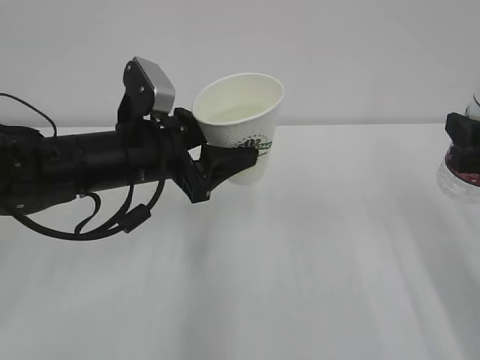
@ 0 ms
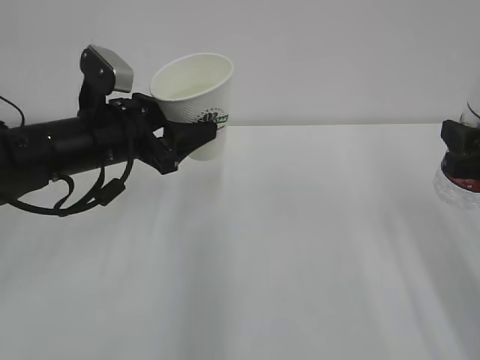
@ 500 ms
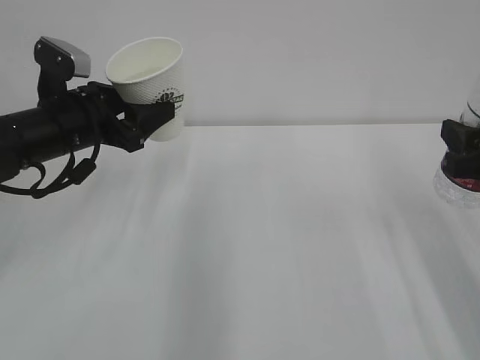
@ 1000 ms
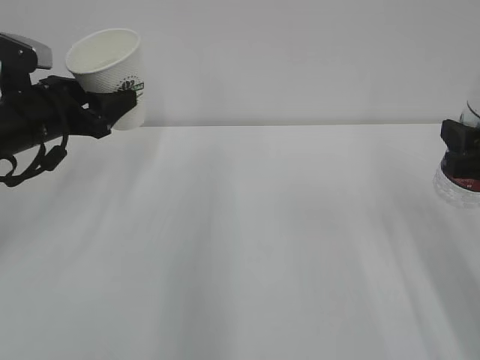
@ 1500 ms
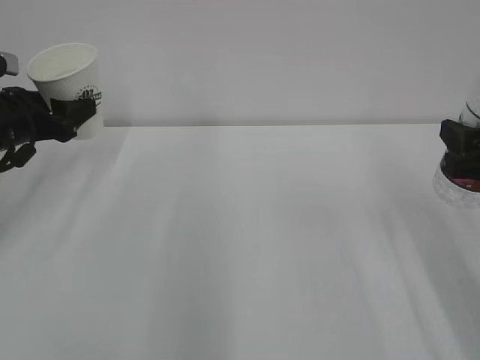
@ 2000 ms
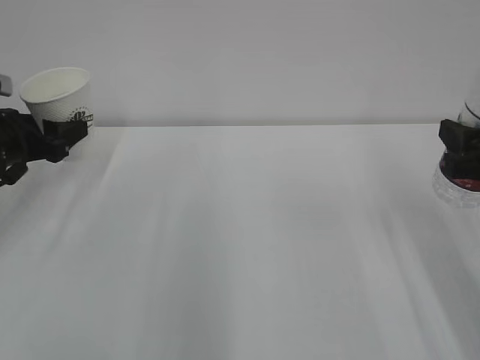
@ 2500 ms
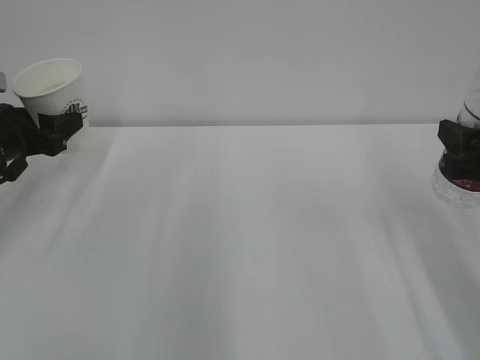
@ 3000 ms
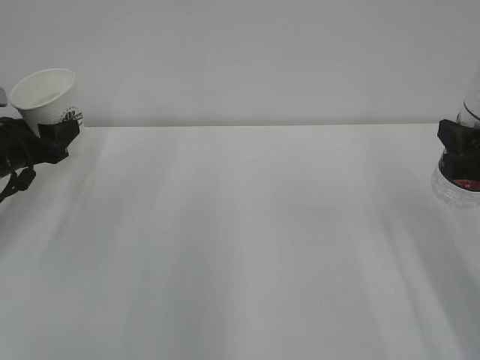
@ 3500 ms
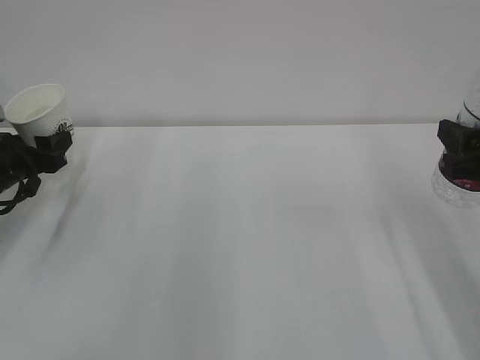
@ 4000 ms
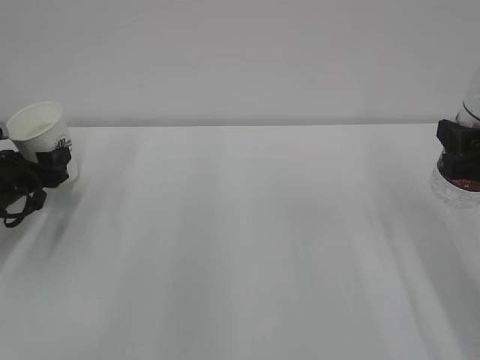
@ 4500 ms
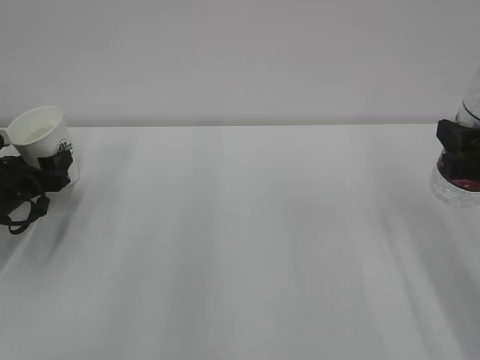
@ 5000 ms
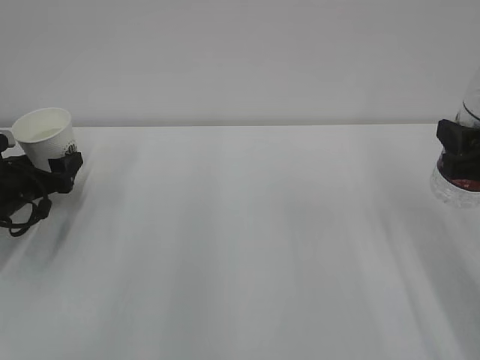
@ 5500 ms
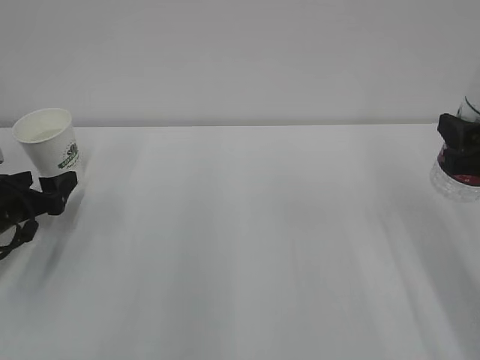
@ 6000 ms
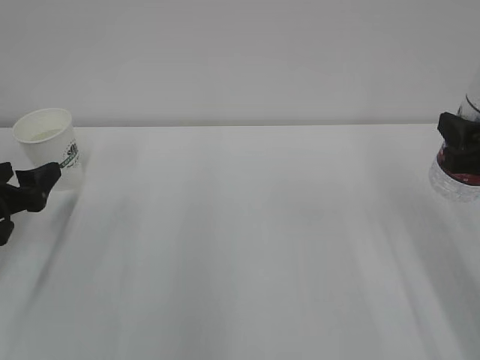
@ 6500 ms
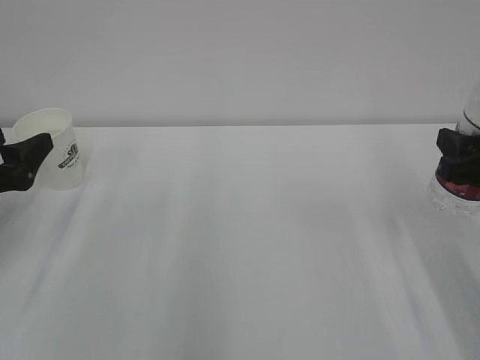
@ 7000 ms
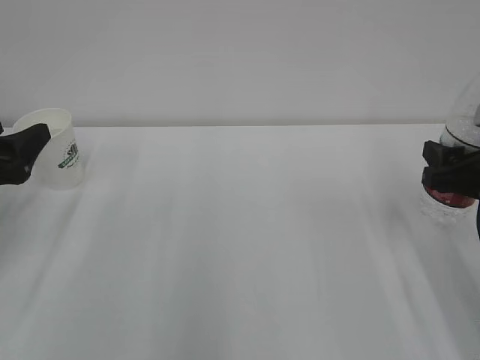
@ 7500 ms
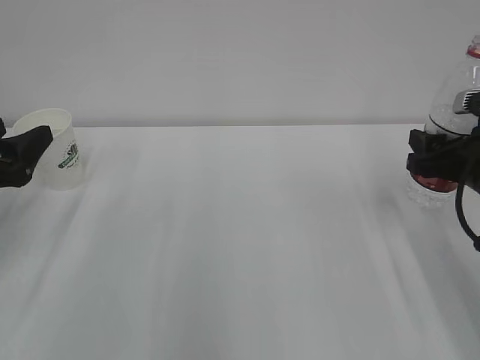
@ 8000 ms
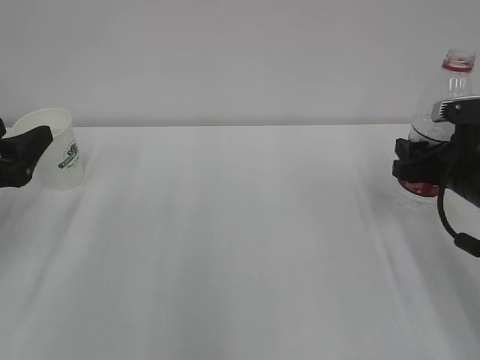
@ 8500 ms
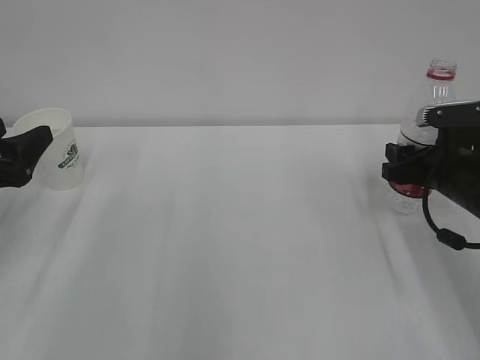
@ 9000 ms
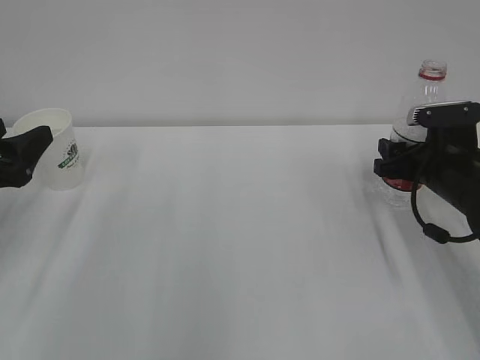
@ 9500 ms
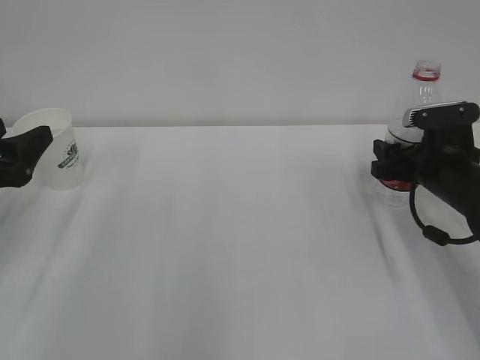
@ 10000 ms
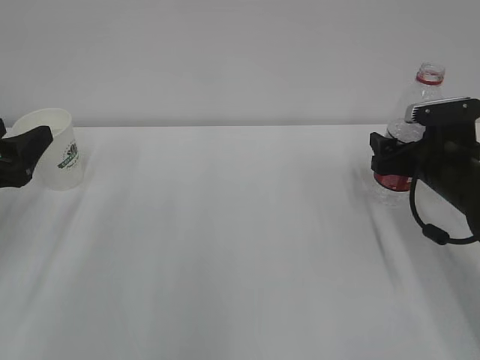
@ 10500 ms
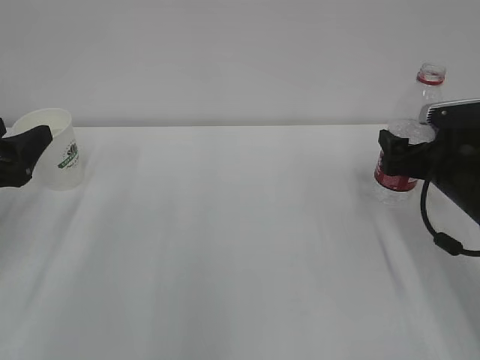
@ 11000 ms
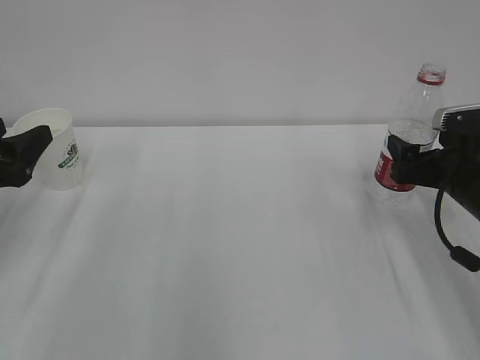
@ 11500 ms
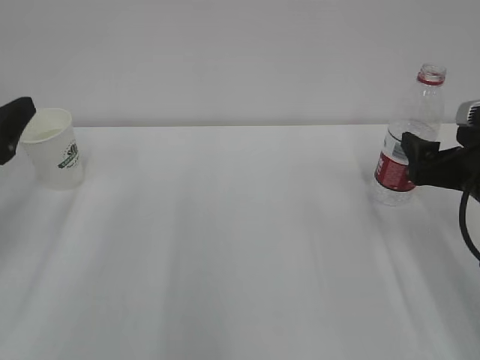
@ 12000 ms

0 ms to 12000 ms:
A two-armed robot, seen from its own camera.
0 ms to 2000 ms: The left gripper heads to the left, covering roughly 20 cm.
2000 ms to 4000 ms: The left gripper shifts approximately 5 cm downward.
4000 ms to 6000 ms: The left gripper moves approximately 5 cm, and opens up.
6000 ms to 8000 ms: The right gripper goes roughly 5 cm forward, while the left gripper is displaced upward and backward by approximately 10 cm, and closes up.
8000 ms to 10000 ms: The right gripper moves forward and downward, approximately 10 cm.
10000 ms to 12000 ms: The right gripper is displaced backward and upward by roughly 10 cm, and opens up.

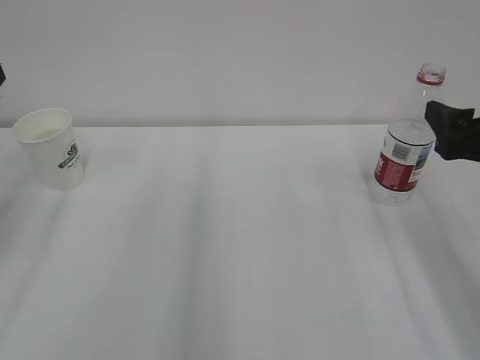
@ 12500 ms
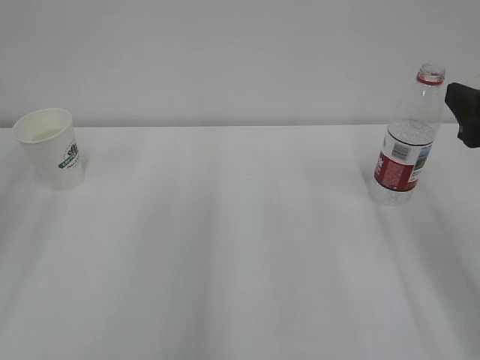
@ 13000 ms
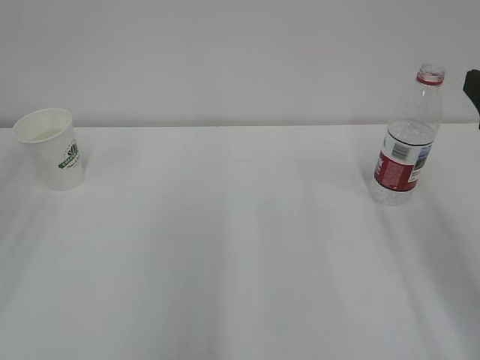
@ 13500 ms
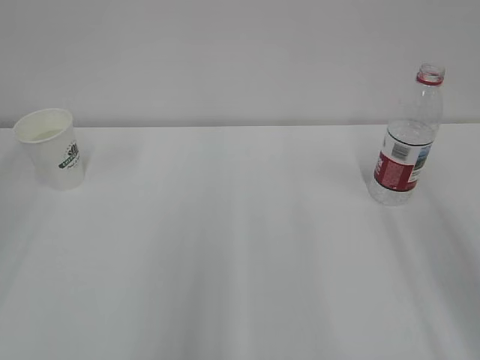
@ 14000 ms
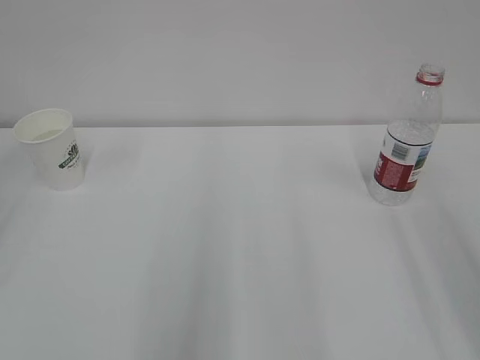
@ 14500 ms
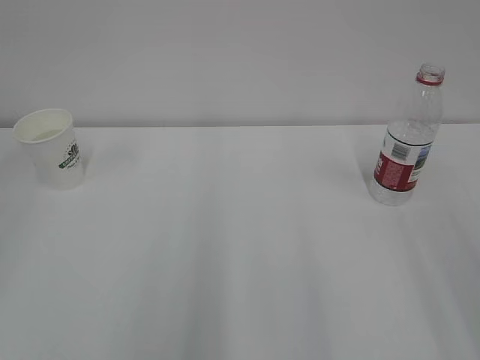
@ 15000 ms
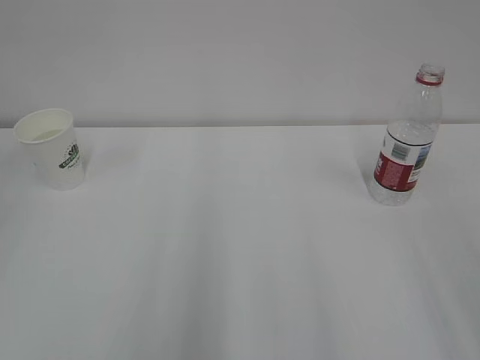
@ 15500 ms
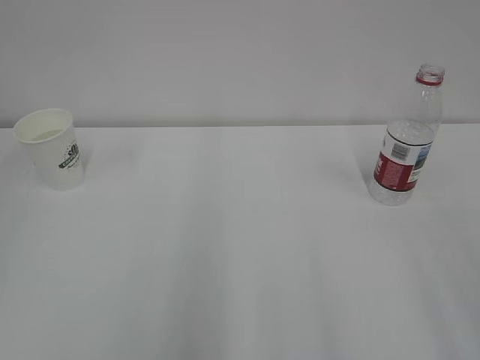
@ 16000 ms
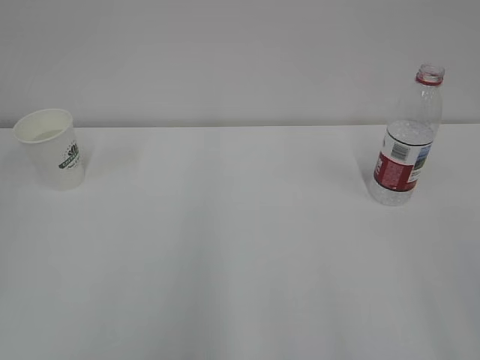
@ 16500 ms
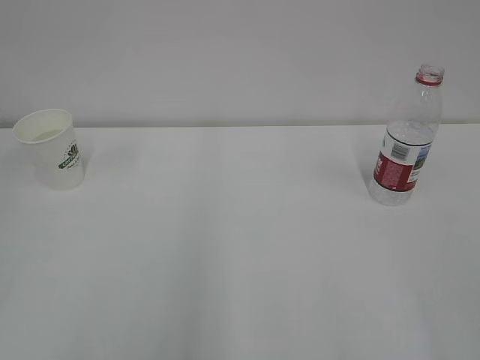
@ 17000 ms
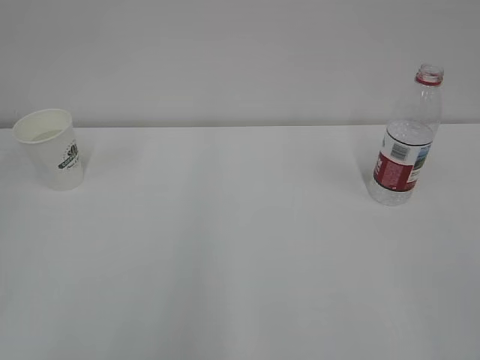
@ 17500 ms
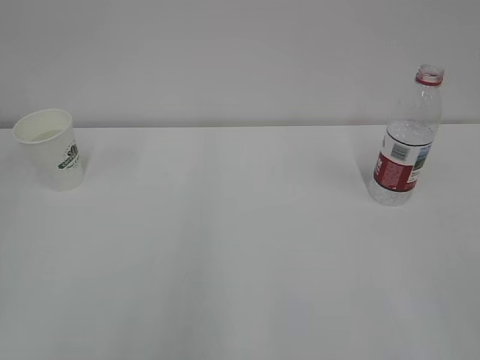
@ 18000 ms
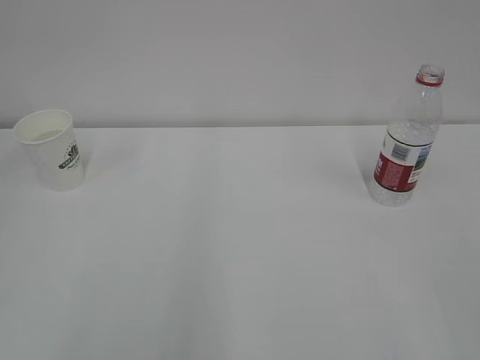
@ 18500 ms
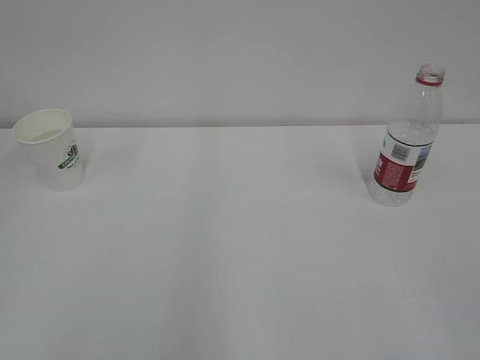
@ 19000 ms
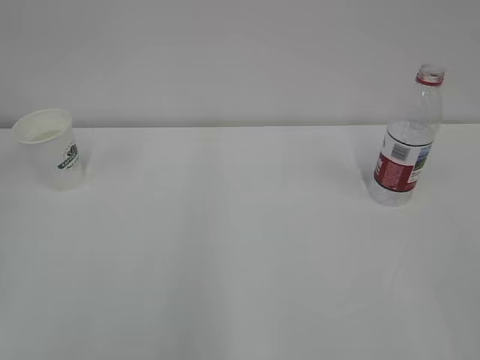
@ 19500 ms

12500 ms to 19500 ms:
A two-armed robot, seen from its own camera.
12500 ms to 14500 ms: The right gripper goes some 15 cm backward and upward, and closes.

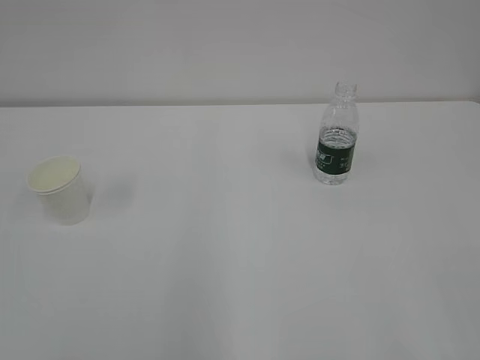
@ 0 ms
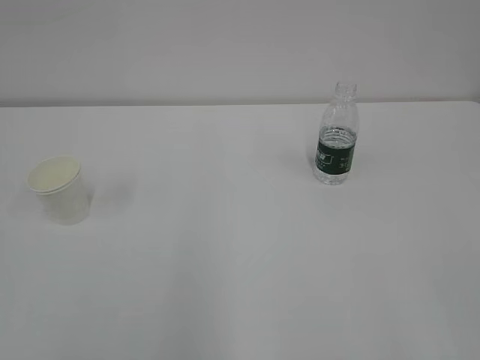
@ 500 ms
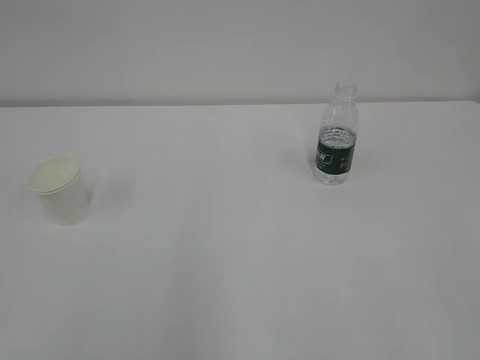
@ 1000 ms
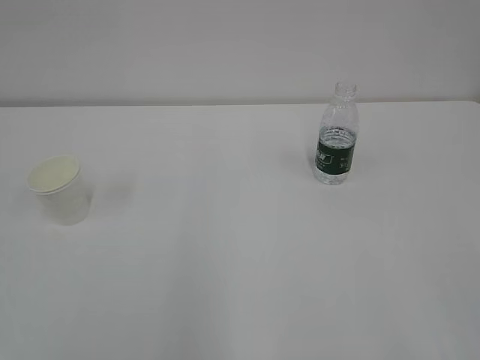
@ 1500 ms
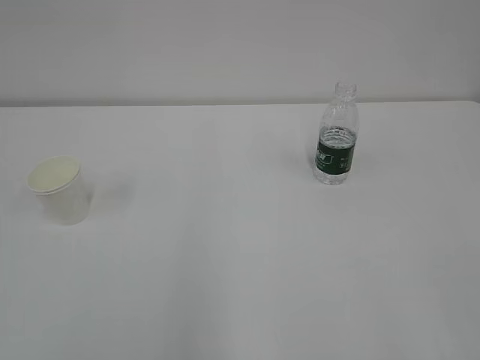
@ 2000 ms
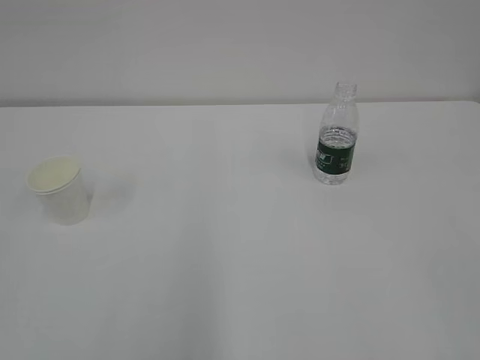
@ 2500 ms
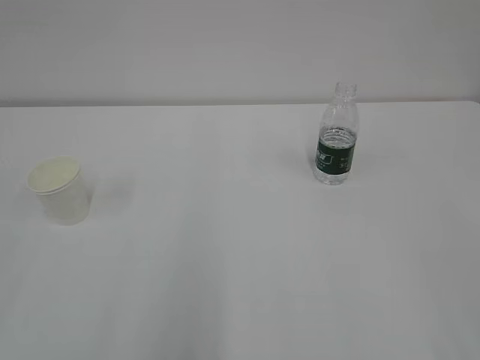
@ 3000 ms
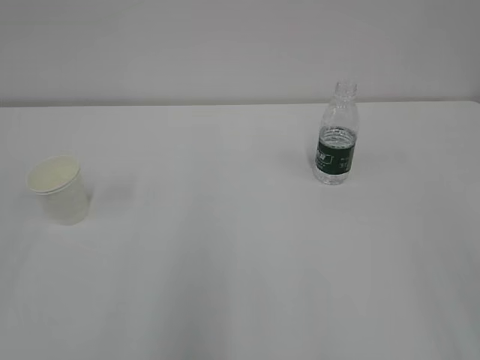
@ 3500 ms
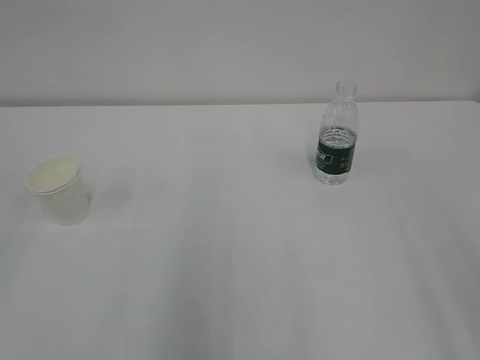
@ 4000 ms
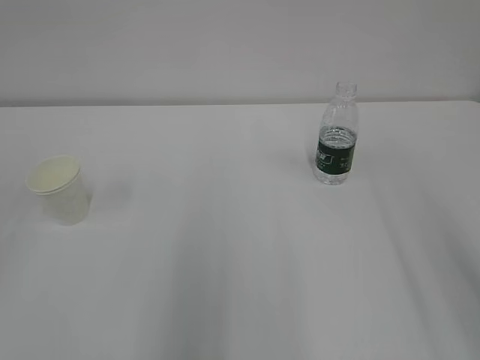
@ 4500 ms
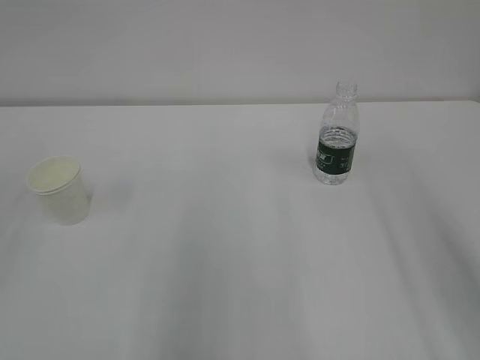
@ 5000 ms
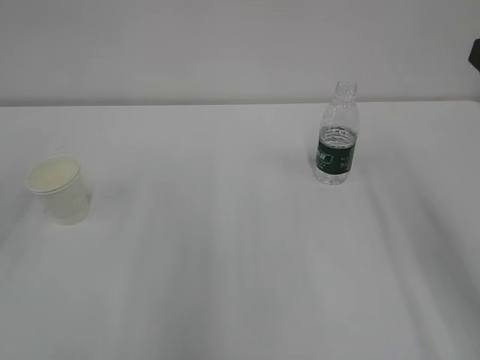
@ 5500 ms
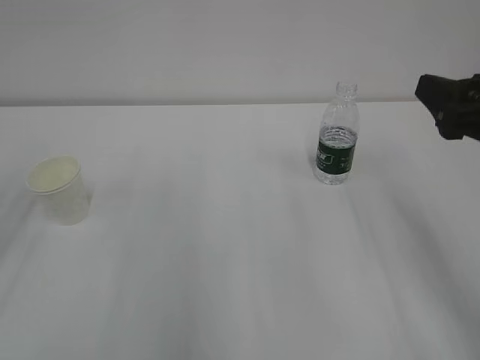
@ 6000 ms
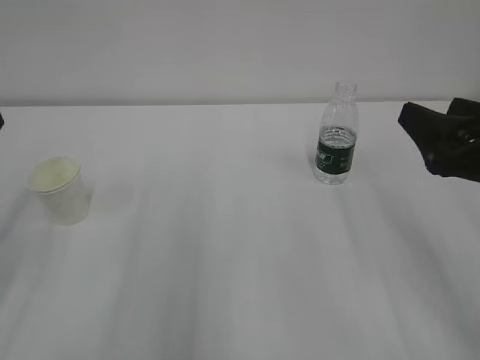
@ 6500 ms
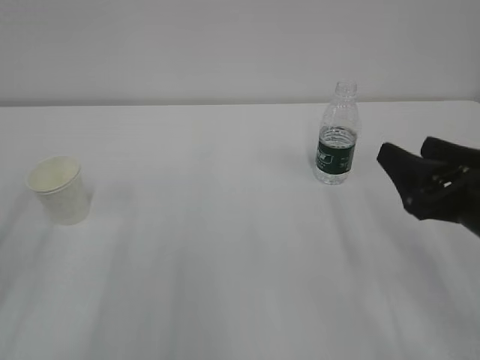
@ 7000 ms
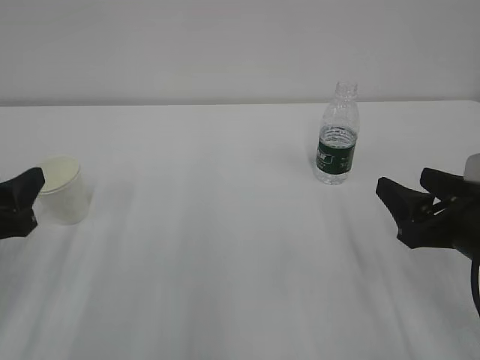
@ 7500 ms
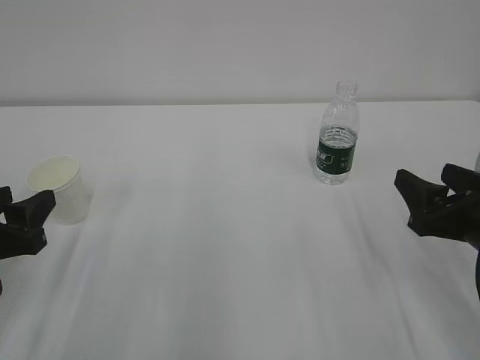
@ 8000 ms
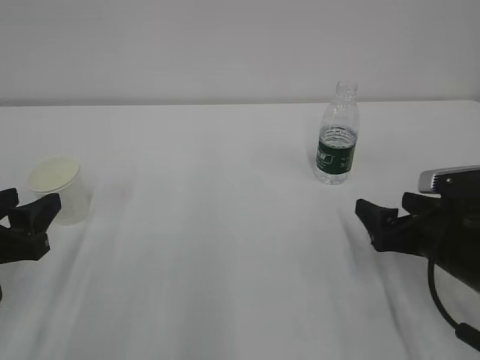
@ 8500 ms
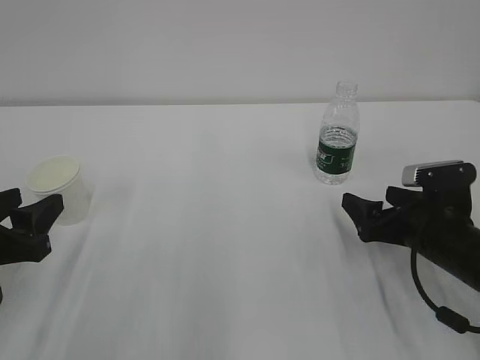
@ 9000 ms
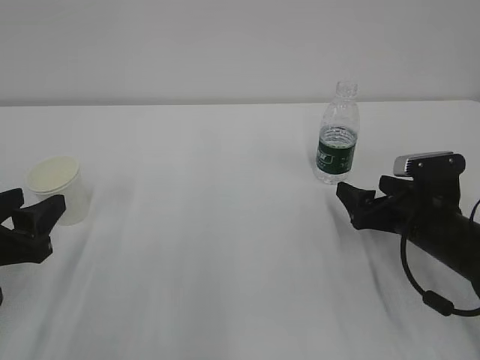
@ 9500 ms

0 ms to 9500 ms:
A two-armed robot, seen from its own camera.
5500 ms to 7500 ms: Both grippers move downward, about 15 cm.
7500 ms to 9500 ms: The right gripper travels forward and downward by approximately 10 cm, and opens its fingers.
